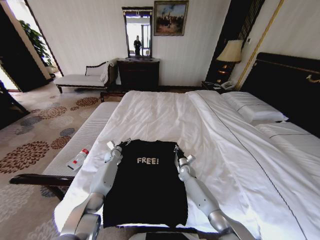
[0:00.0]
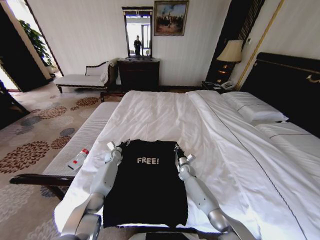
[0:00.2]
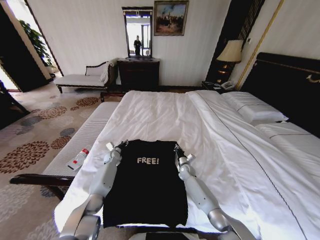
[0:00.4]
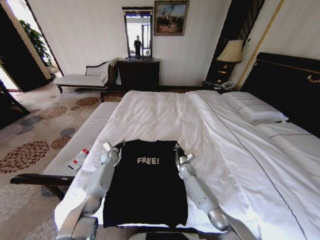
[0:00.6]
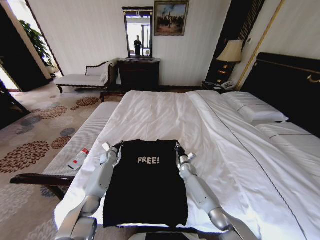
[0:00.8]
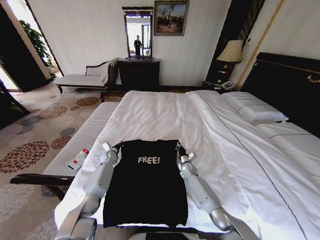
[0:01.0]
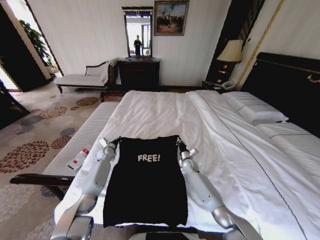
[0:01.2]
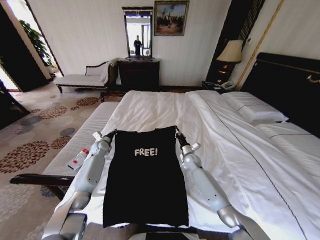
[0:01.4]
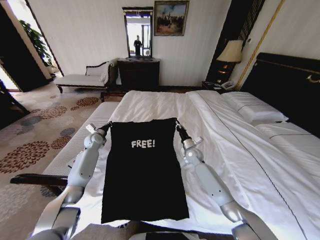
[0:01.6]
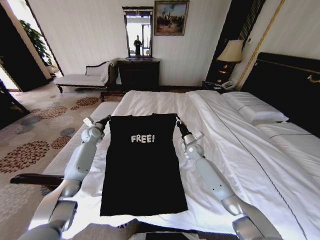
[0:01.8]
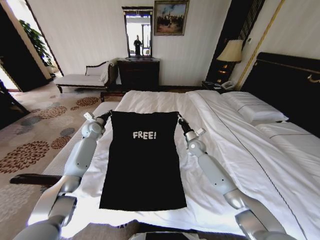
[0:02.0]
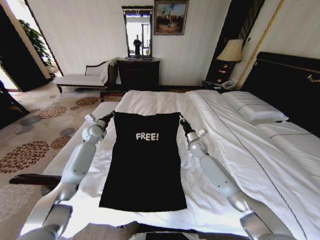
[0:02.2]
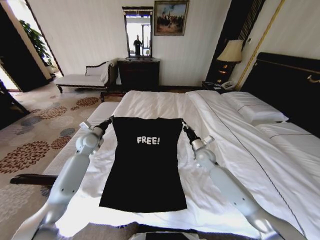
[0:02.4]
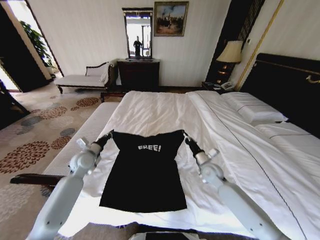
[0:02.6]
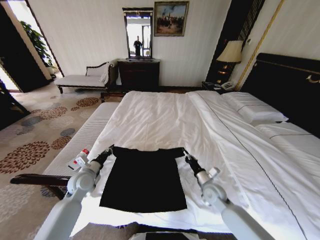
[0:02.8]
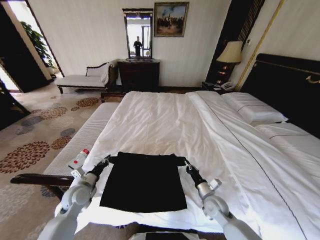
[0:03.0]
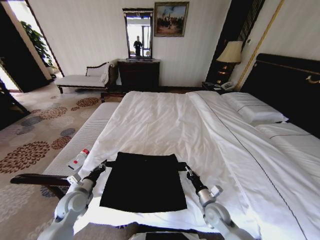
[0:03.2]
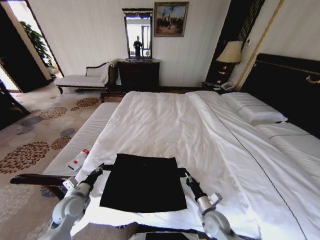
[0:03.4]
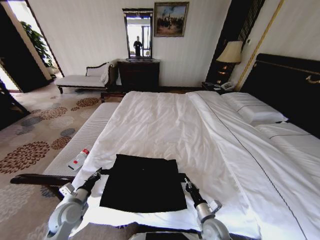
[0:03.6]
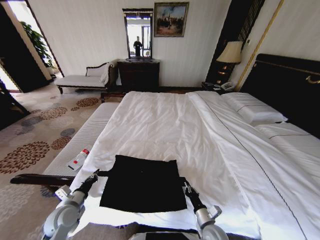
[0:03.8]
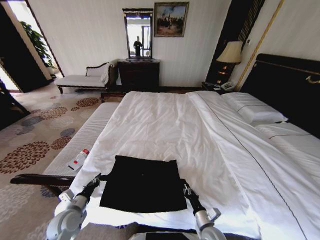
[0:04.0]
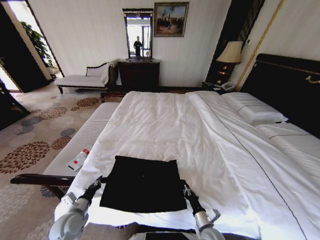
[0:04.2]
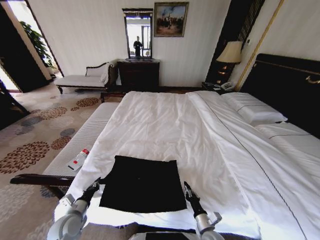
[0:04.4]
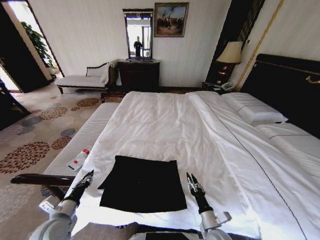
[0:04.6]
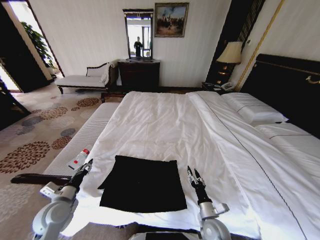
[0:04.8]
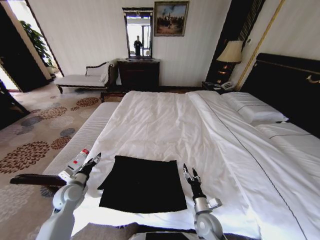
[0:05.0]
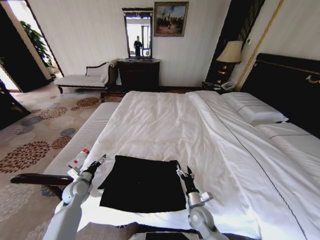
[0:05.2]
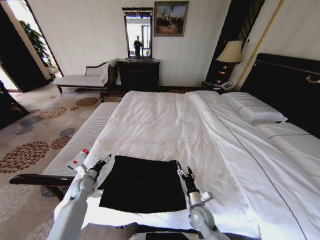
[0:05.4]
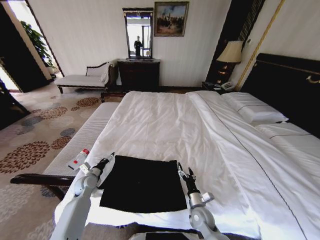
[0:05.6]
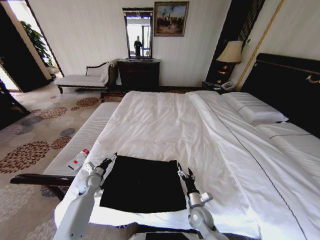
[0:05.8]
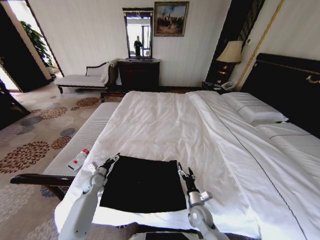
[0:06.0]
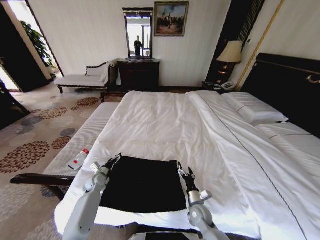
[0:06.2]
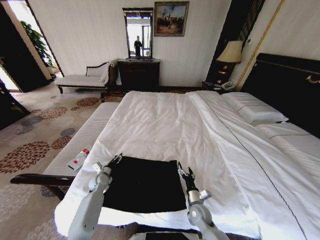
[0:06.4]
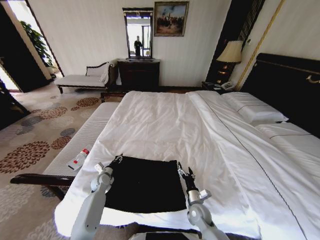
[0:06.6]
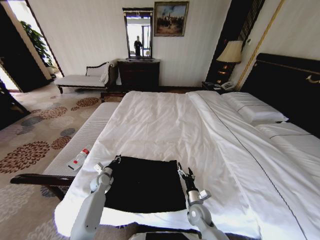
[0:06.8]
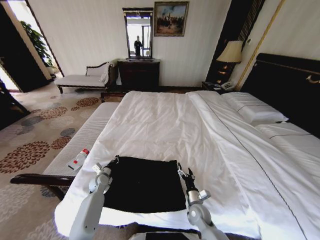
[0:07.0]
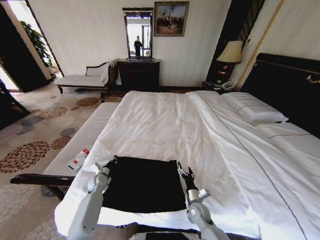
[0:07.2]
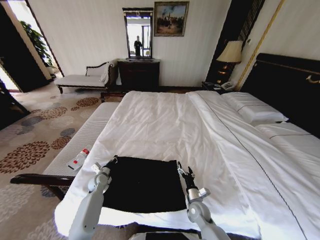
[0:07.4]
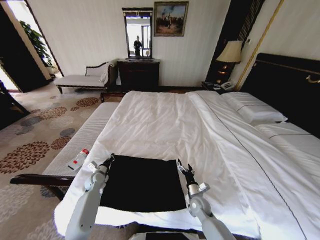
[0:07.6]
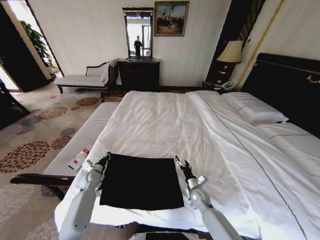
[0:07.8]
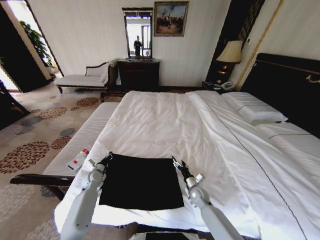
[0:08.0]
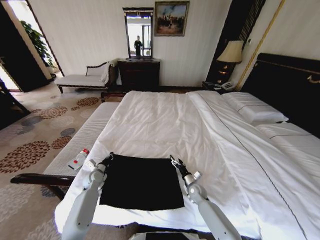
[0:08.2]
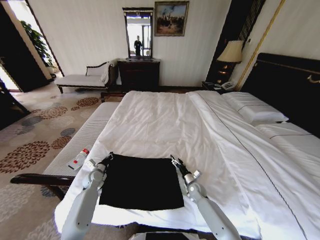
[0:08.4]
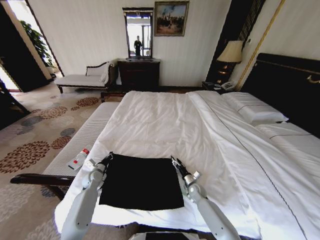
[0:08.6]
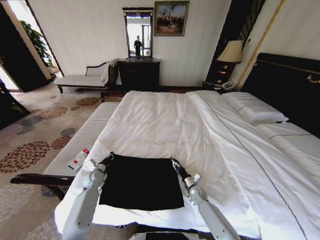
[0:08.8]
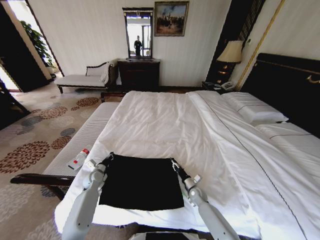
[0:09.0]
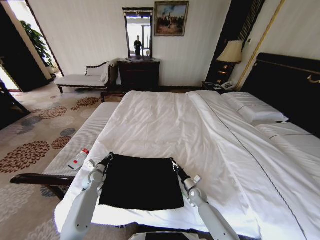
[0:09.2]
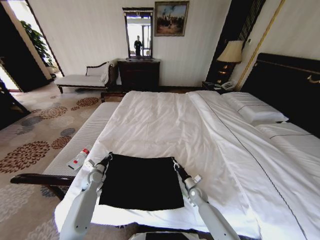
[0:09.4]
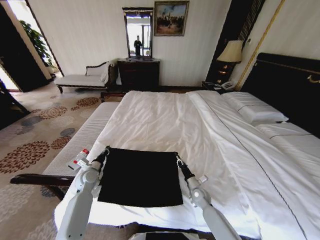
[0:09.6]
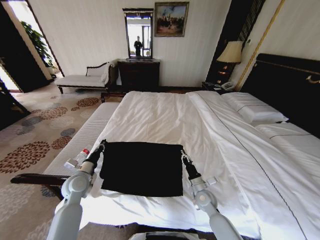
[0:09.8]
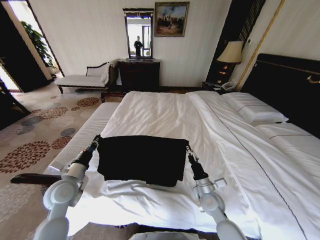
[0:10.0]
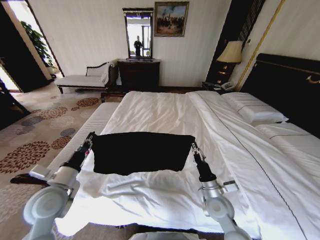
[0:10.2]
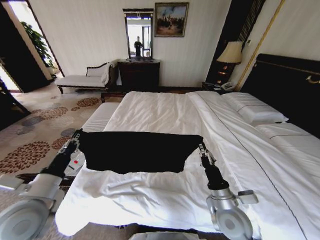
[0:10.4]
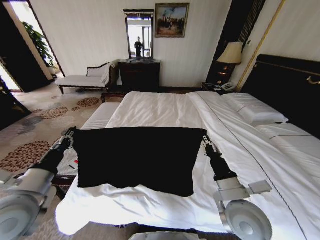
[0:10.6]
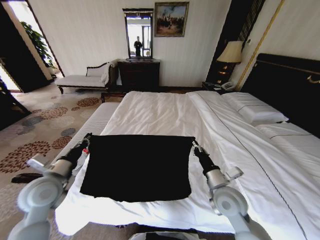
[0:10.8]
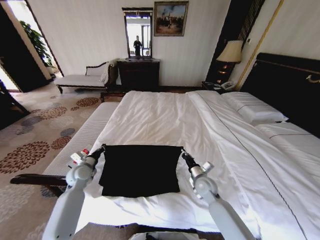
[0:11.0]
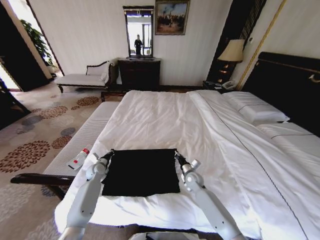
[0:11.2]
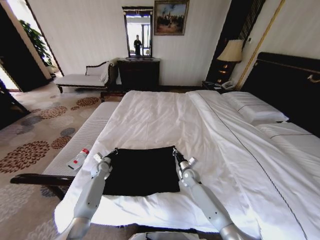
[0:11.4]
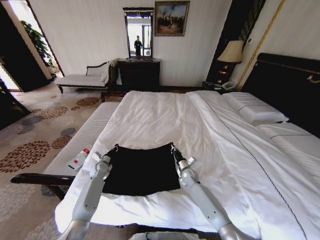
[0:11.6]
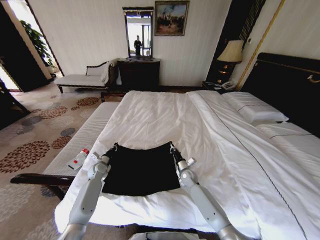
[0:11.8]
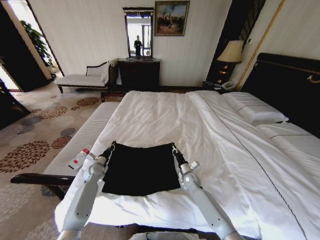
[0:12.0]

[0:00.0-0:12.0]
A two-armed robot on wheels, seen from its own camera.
Task of the whole recording: Fold the clothes on the bed.
0:00.0 to 0:01.6: The left gripper moves upward and to the left, about 15 cm, and closes its fingers. The right gripper moves upward, about 15 cm.
0:01.6 to 0:03.0: Both grippers move backward, some 25 cm.
0:03.0 to 0:04.4: Both grippers travel together backward and downward, some 15 cm.
0:04.4 to 0:06.0: The right gripper goes some 10 cm forward, and opens its fingers; the left gripper is displaced forward by roughly 20 cm, and opens.
0:06.0 to 0:07.6: The left gripper closes, while the right gripper ends up about 5 cm from where it was.
0:07.6 to 0:09.0: The right gripper goes some 10 cm forward and downward, and closes its fingers.
0:09.0 to 0:10.4: Both grippers move upward and backward, some 30 cm.
0:10.4 to 0:12.0: The two grippers go approximately 30 cm forward and downward.

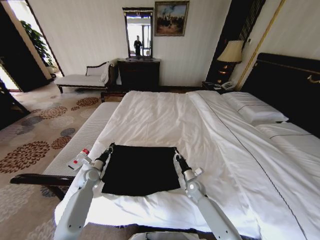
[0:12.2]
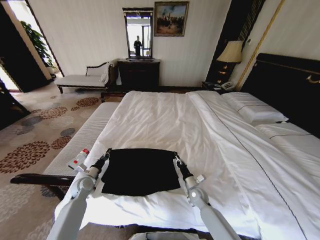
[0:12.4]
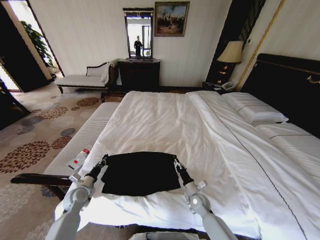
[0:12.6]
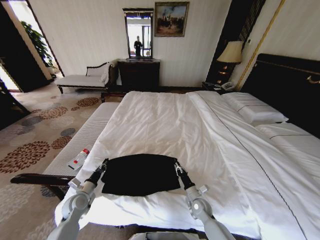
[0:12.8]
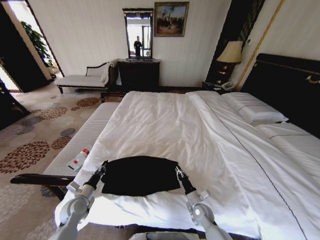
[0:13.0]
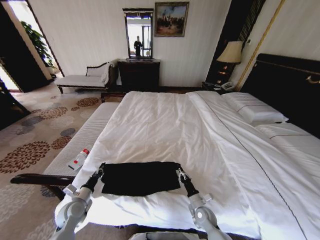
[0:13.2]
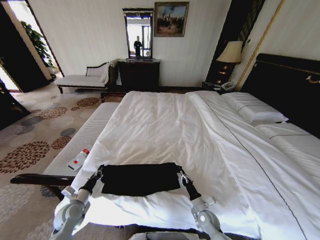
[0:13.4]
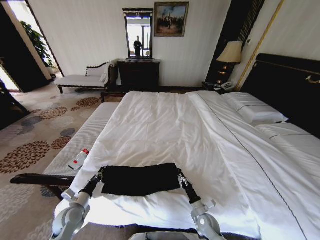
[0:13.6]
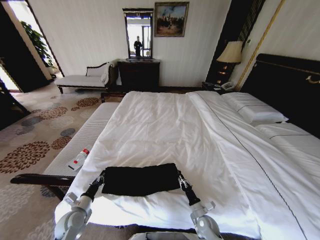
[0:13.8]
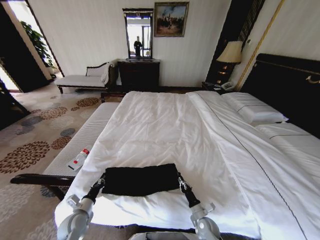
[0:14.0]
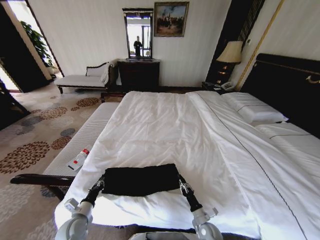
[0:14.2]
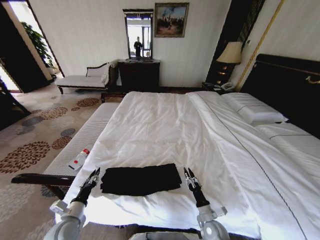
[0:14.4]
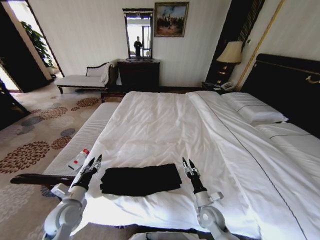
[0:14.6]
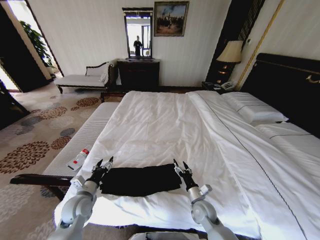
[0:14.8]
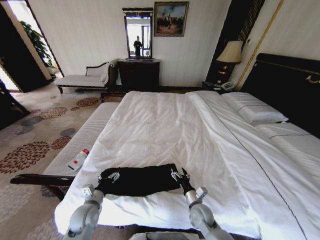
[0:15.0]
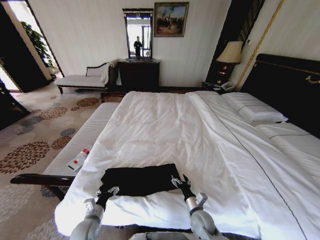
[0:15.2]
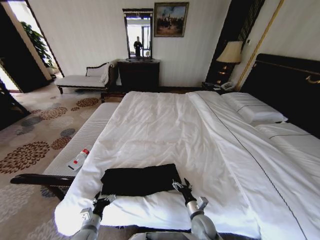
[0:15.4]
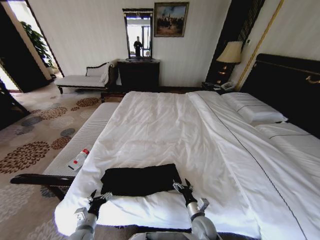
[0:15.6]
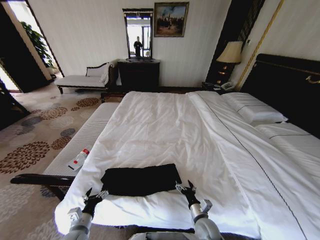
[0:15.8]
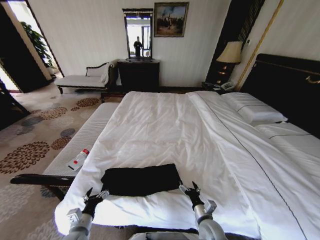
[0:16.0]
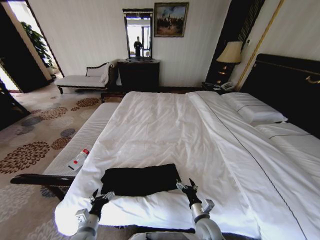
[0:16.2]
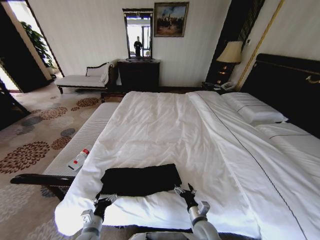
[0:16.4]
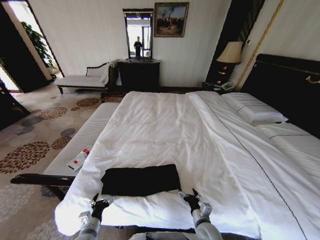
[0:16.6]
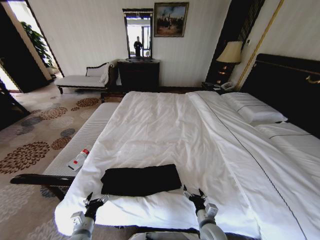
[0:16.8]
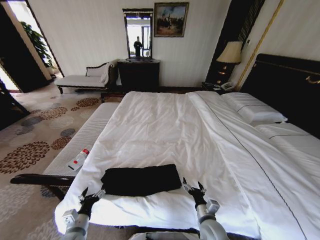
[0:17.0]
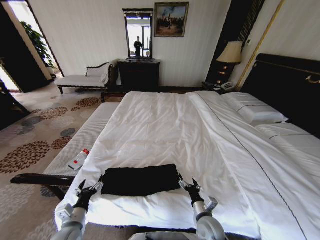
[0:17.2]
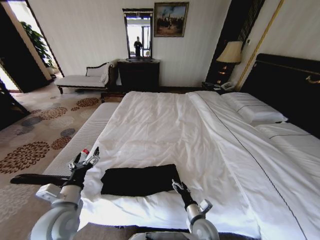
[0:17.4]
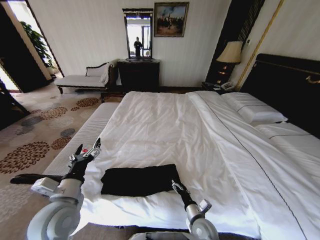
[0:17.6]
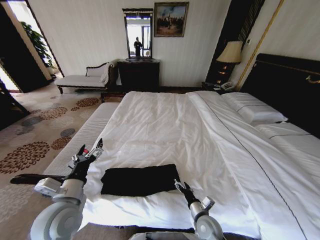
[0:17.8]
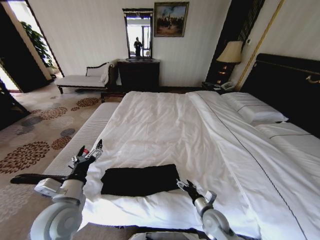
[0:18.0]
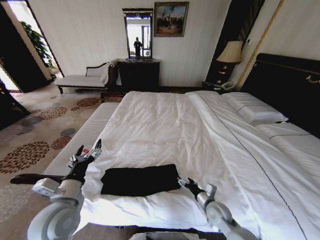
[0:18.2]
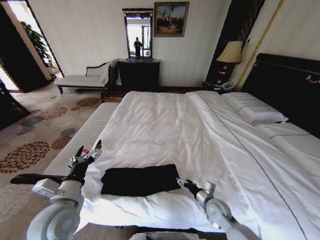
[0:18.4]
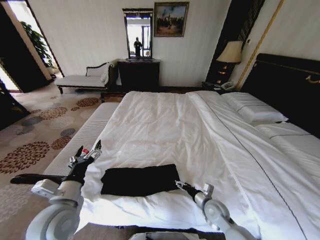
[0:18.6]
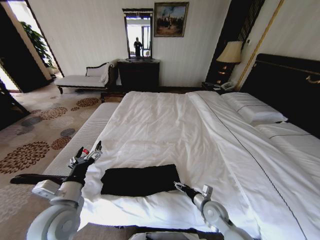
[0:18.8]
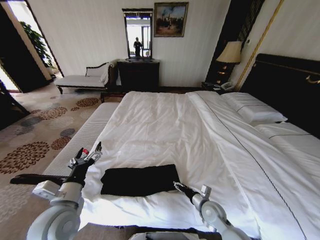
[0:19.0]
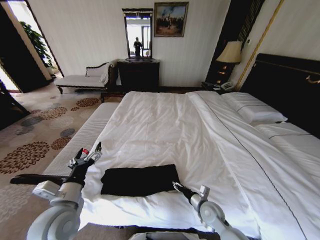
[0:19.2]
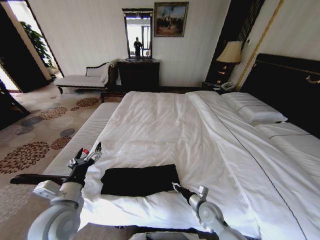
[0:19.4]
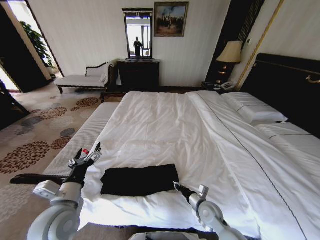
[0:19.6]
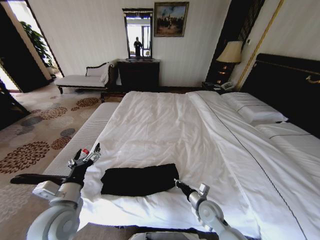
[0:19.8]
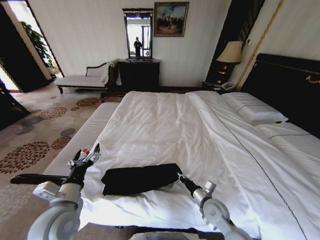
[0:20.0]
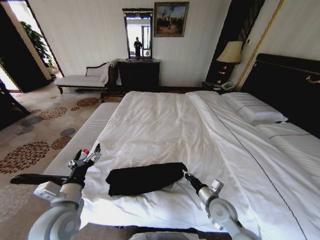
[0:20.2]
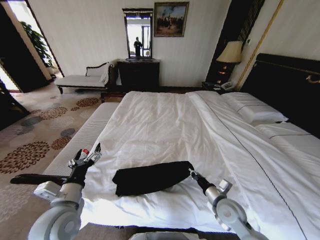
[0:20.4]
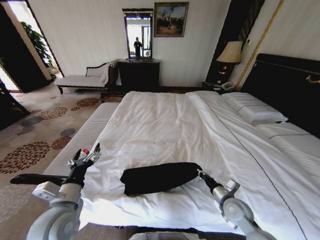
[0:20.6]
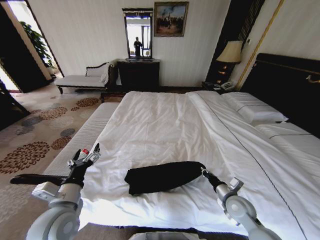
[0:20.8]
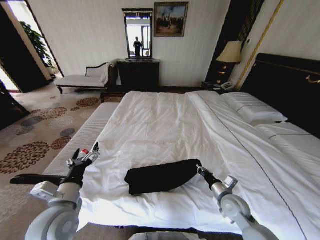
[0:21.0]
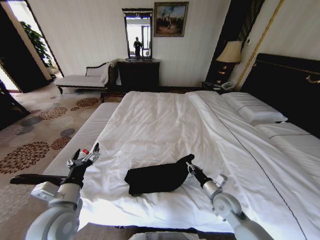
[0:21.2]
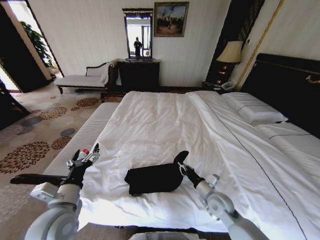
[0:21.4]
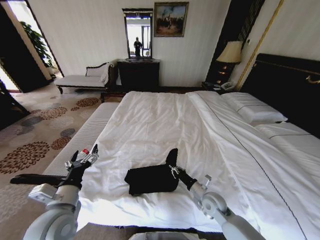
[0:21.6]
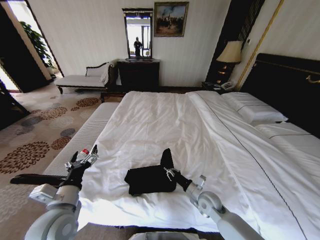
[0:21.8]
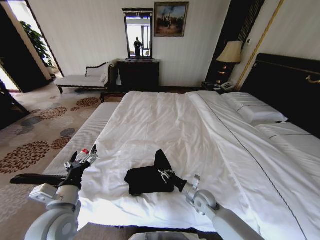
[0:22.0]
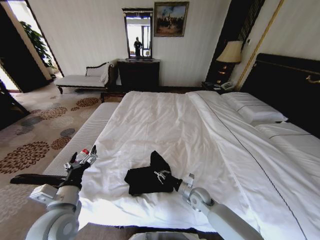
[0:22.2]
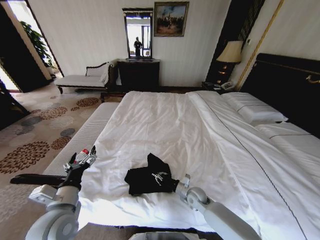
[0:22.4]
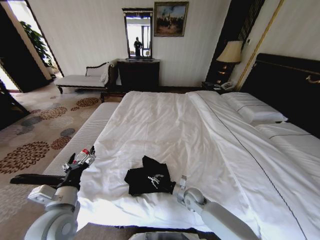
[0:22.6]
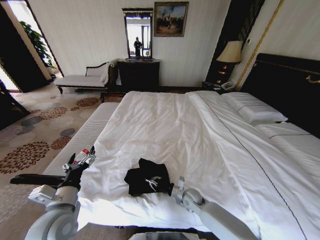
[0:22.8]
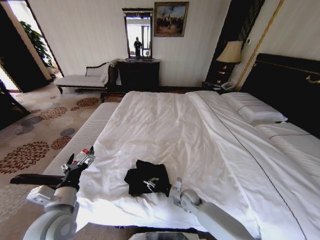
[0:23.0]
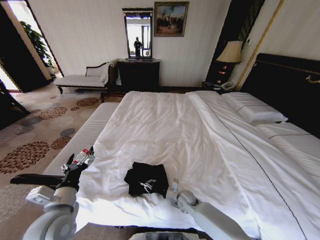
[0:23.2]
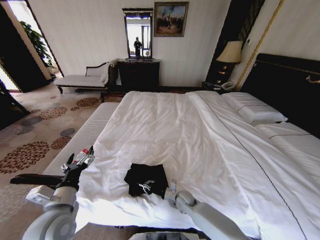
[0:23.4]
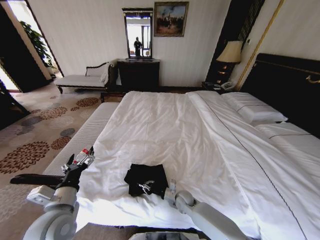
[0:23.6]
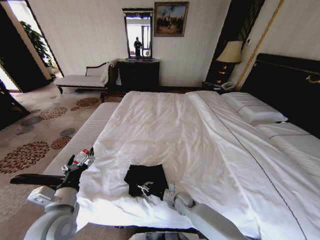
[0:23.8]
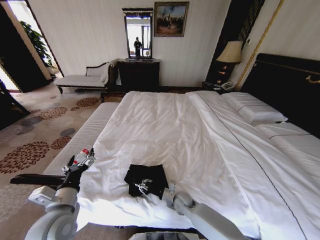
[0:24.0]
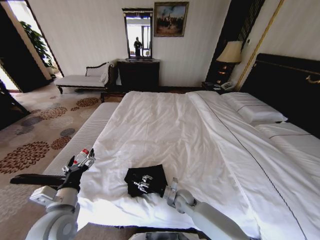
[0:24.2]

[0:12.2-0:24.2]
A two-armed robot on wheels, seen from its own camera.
Task of the whole recording: Fold the clothes on the bed.
0:12.2 to 0:13.8: Both grippers travel together backward, roughly 15 cm.
0:13.8 to 0:15.2: The left gripper shifts approximately 5 cm to the right, travels upward and back again, some 10 cm each way, and opens its fingers, while the right gripper goes roughly 5 cm upward, and opens.
0:15.2 to 0:16.6: The grippers stay close to where they were, moving slightly.
0:16.6 to 0:18.2: The left gripper moves upward, about 25 cm, while the right gripper moves forward and to the right, some 10 cm.
0:18.2 to 0:19.8: The right gripper closes.
0:19.8 to 0:21.2: The right gripper travels to the right by roughly 5 cm.
0:21.2 to 0:22.6: The right gripper is displaced to the left, downward and forward by about 15 cm.
0:22.6 to 0:24.2: The right gripper heads to the left, covering about 5 cm, and opens up.
